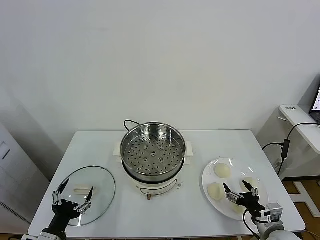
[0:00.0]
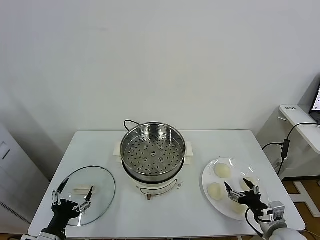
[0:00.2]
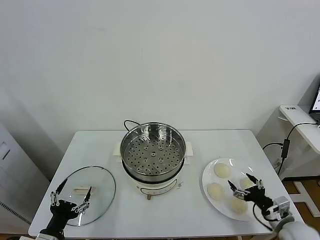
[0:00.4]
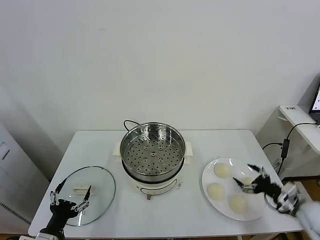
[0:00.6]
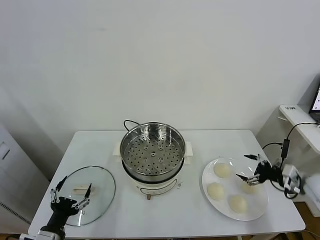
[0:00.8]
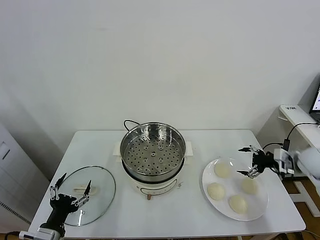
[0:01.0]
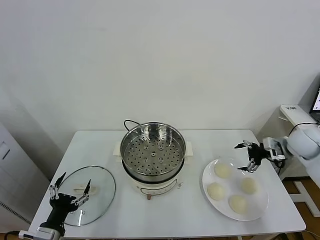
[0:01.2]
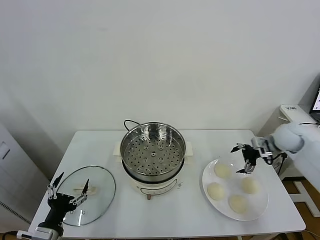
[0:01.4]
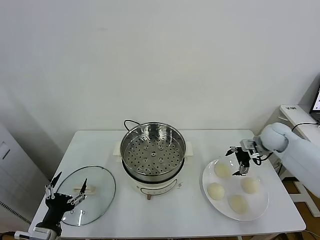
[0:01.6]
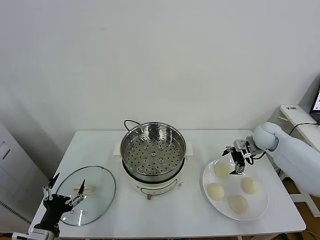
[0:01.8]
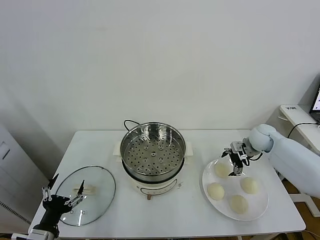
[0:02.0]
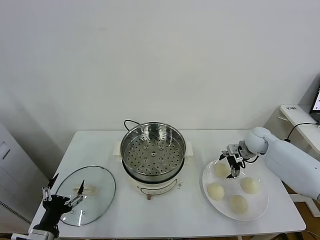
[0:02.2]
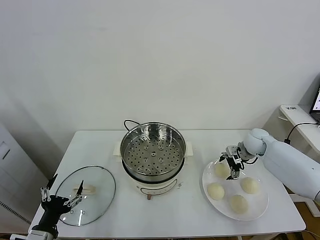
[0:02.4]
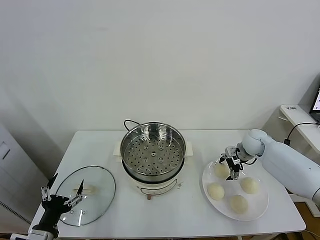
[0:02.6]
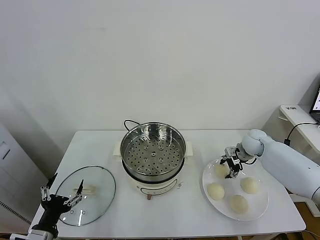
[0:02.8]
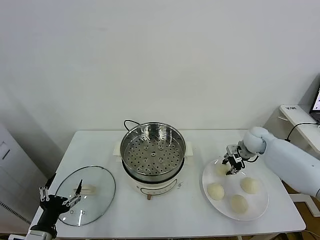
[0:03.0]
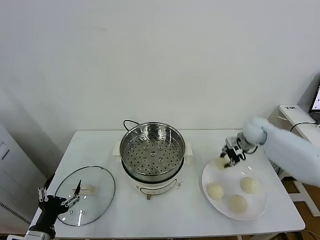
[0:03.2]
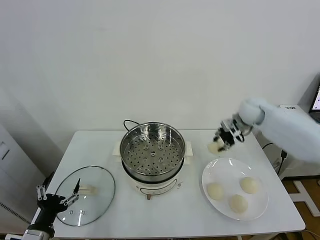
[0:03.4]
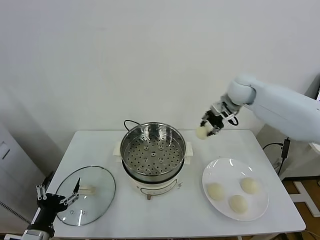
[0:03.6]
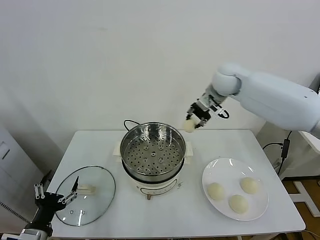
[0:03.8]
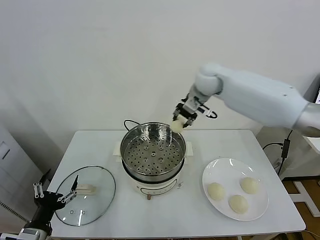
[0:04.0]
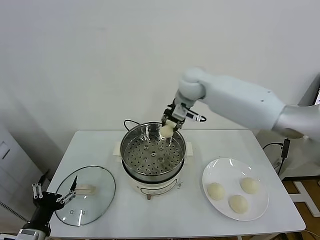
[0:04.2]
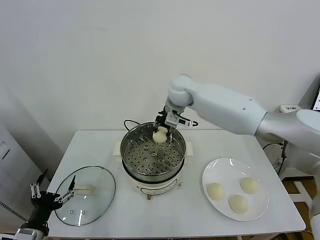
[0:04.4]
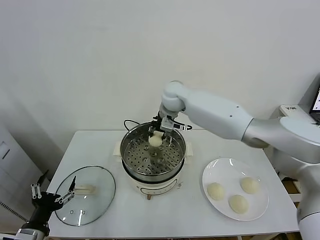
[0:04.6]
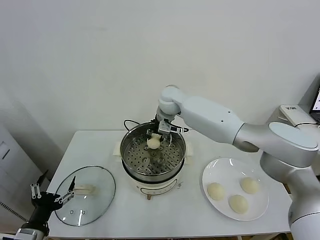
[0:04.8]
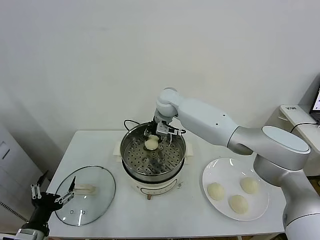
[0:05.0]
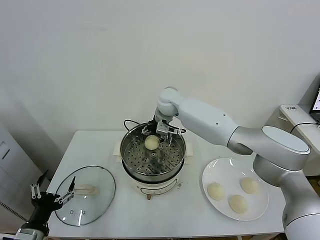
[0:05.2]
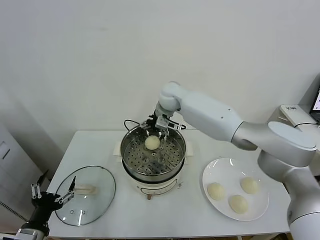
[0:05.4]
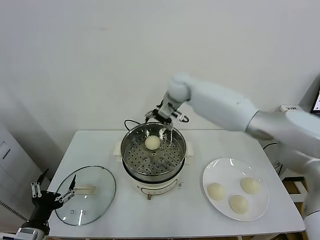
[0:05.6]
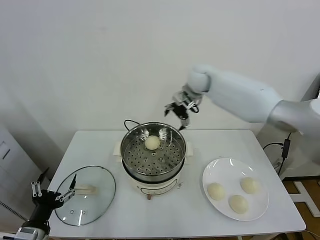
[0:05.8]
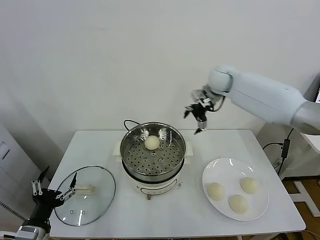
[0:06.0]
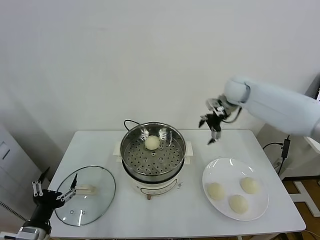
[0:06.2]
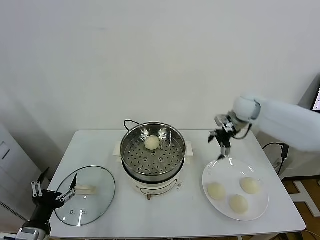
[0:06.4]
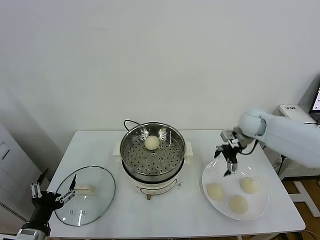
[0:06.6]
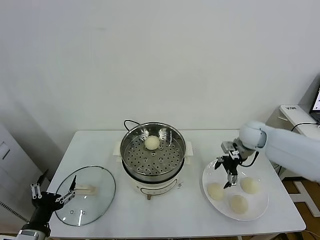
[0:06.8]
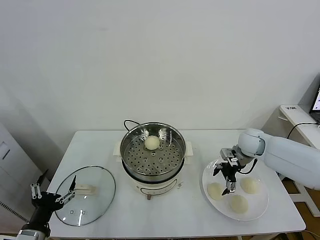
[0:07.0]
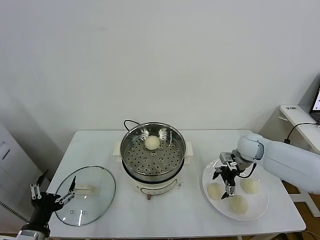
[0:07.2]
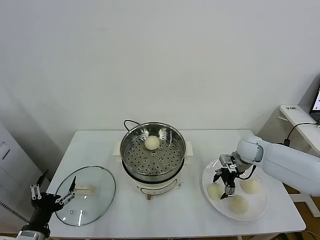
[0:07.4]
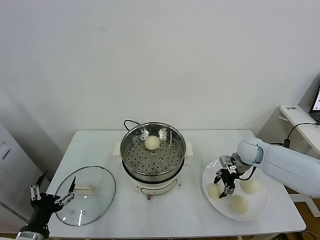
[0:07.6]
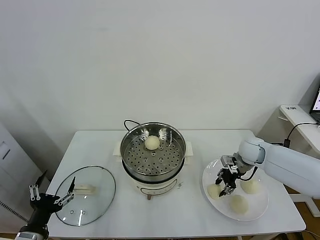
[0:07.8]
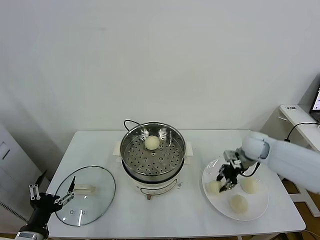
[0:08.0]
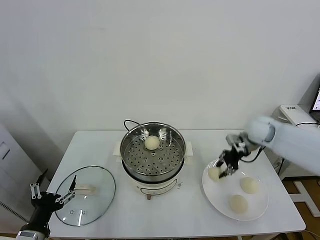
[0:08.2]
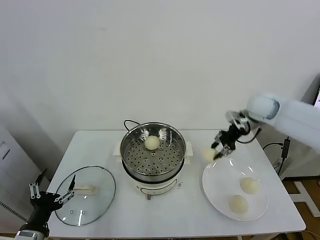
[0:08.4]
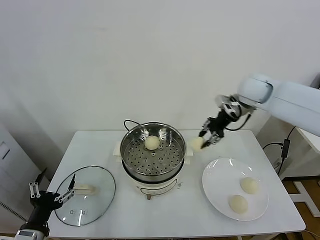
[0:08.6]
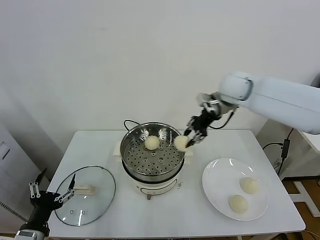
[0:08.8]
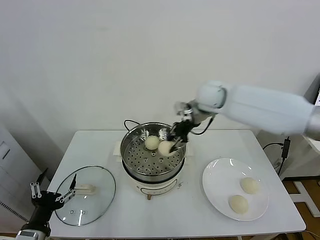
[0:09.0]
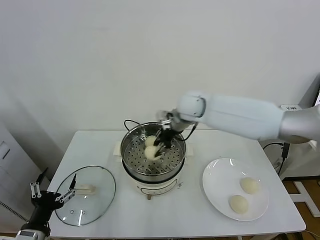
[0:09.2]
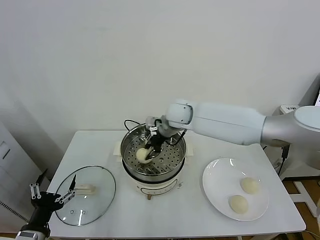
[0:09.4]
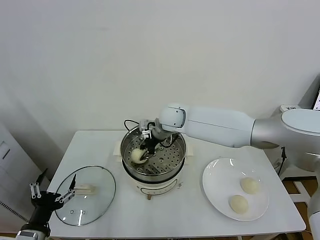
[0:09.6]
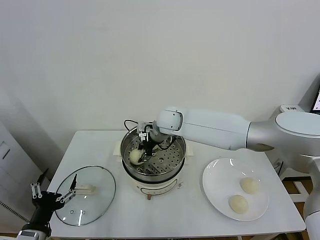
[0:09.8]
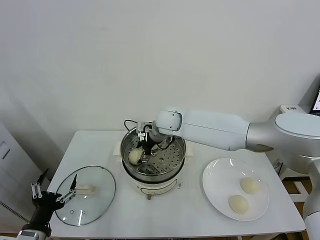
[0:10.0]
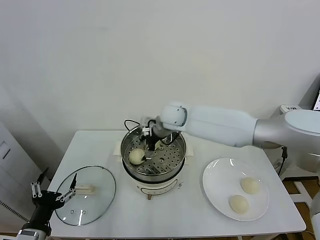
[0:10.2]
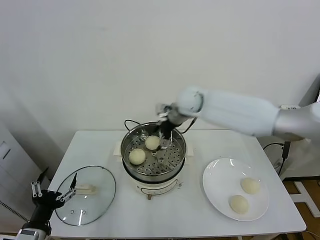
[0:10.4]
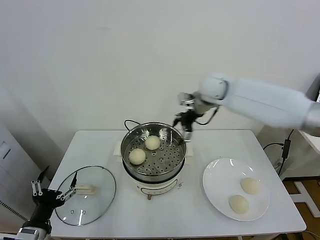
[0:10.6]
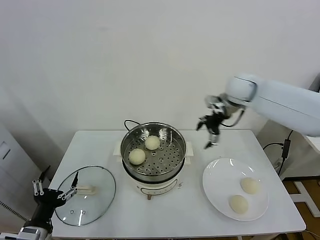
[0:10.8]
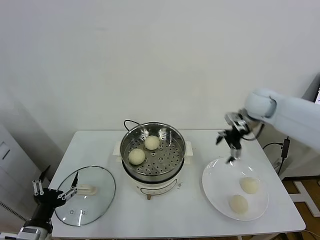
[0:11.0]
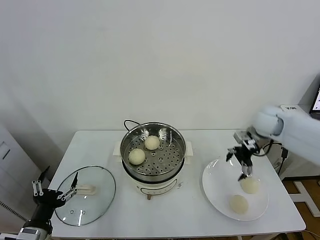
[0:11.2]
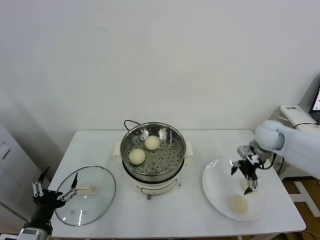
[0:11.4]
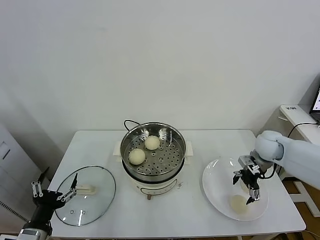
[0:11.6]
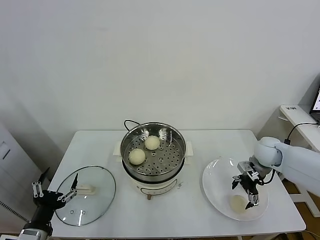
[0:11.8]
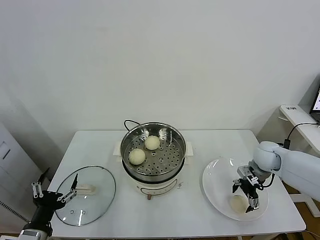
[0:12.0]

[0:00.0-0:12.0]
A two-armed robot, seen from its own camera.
Task of the whole recording: take steamed baozi put them in steamer.
Step, 0:00.0 to 0:02.8: Grasp the baozi in the plate with right gripper.
Step, 0:03.0 to 0:05.2: Place the baozi on the steamer with right gripper.
Step, 0:05.4 to 0:07.4: Grasp the baozi in the plate with right gripper.
Step, 0:07.6 to 0:10.0: Place the baozi on the steamer with right gripper.
0:01.6 to 0:03.0: The right gripper closes.
0:03.0 to 0:04.4: The right gripper heads to the left and upward, covering roughly 35 cm.
0:04.4 to 0:06.0: The right gripper goes roughly 20 cm to the right, and opens its fingers.
0:06.0 to 0:07.6: The right gripper is displaced downward, backward and to the right by roughly 25 cm, and closes up.
0:07.6 to 0:09.0: The right gripper goes approximately 30 cm to the left and upward.
0:09.0 to 0:10.4: The right gripper moves roughly 10 cm to the left and comes back, and opens its fingers.
0:10.4 to 0:12.0: The right gripper travels to the right, downward and backward by about 35 cm.

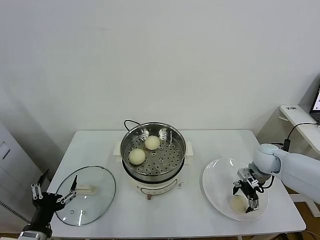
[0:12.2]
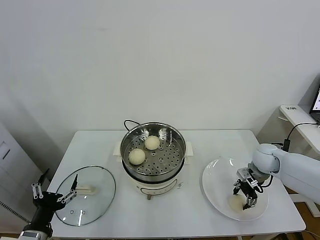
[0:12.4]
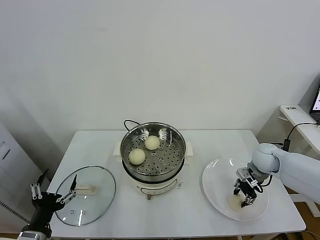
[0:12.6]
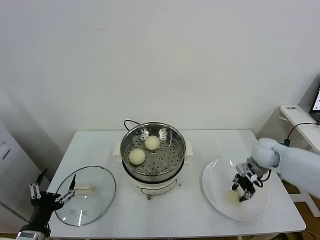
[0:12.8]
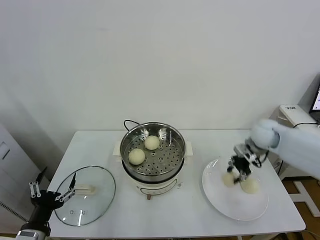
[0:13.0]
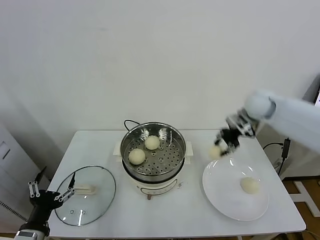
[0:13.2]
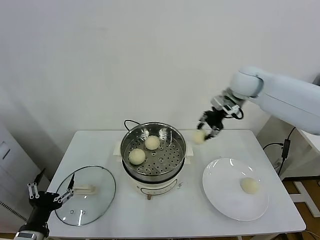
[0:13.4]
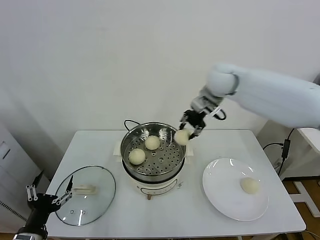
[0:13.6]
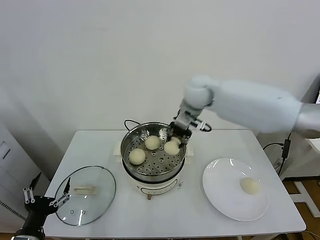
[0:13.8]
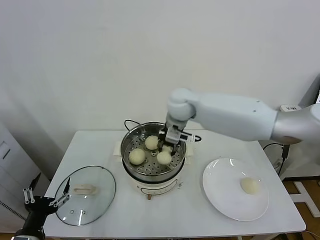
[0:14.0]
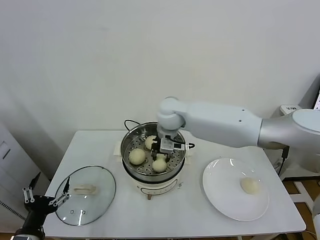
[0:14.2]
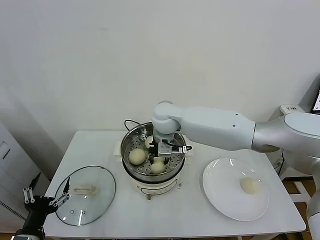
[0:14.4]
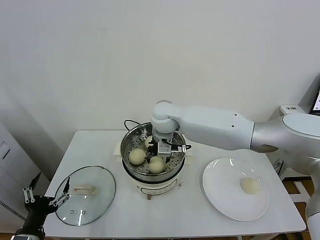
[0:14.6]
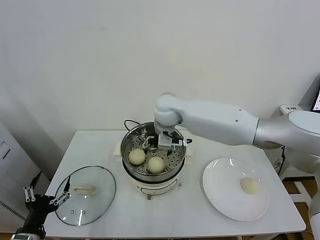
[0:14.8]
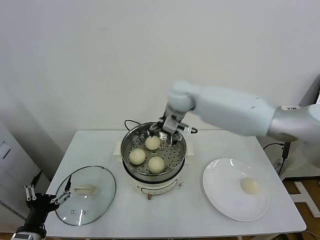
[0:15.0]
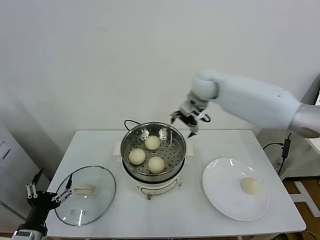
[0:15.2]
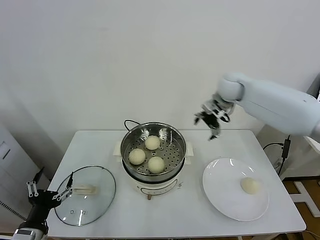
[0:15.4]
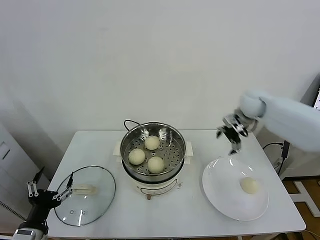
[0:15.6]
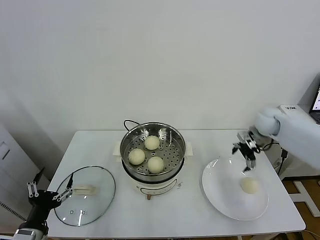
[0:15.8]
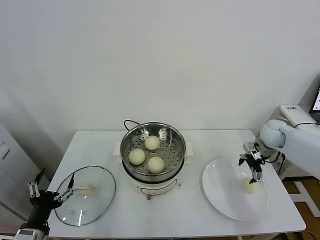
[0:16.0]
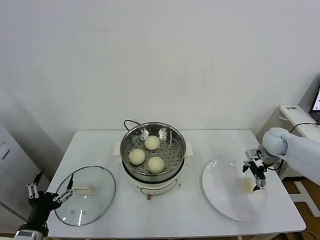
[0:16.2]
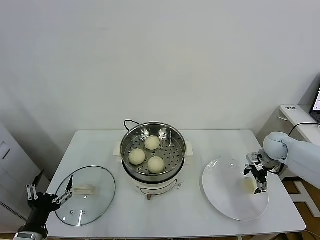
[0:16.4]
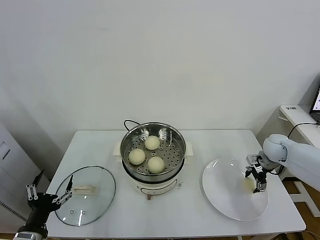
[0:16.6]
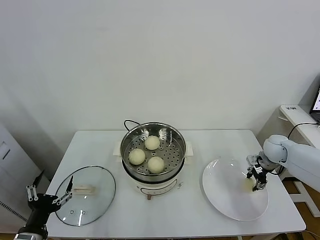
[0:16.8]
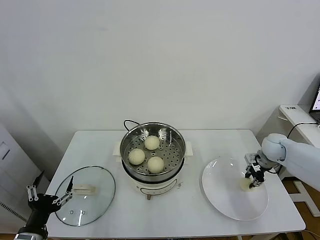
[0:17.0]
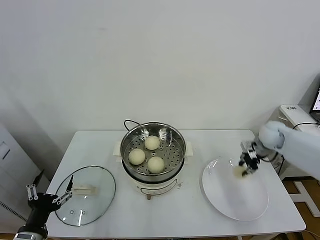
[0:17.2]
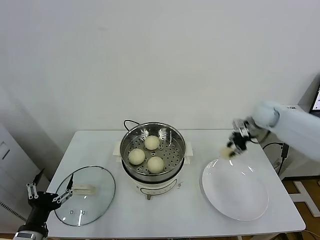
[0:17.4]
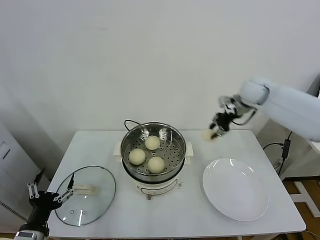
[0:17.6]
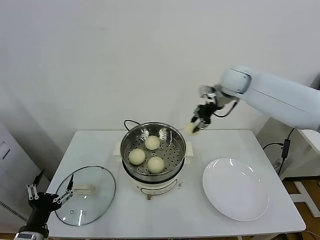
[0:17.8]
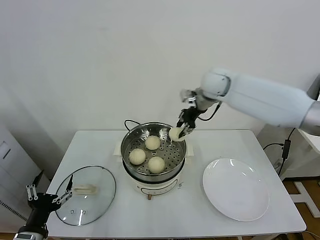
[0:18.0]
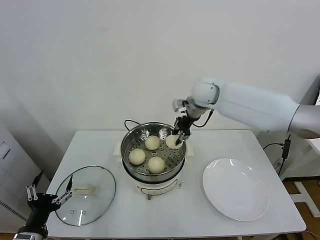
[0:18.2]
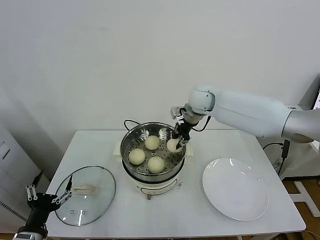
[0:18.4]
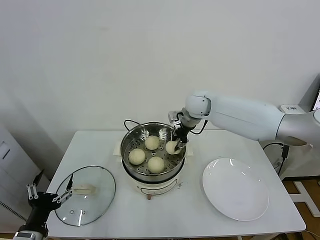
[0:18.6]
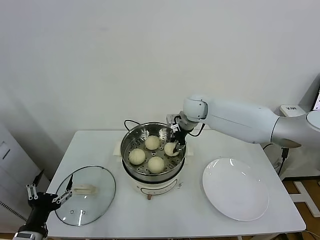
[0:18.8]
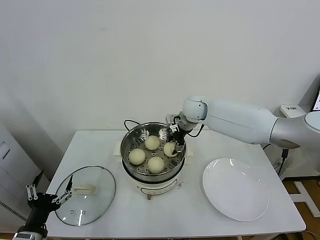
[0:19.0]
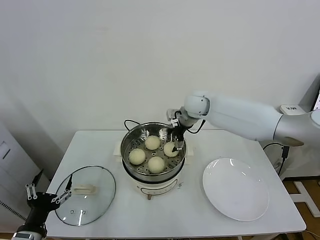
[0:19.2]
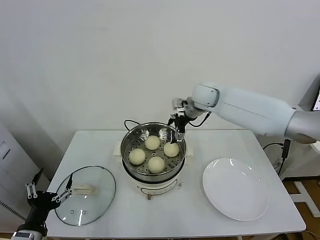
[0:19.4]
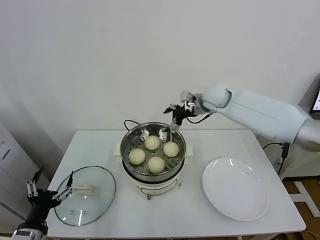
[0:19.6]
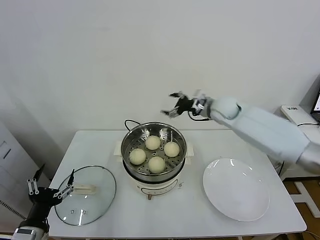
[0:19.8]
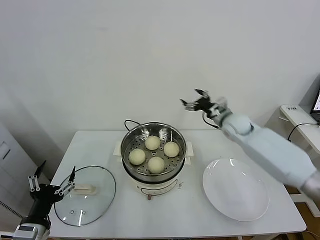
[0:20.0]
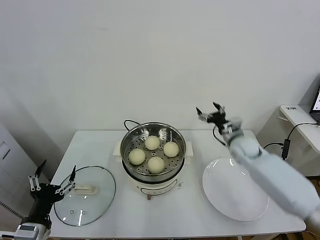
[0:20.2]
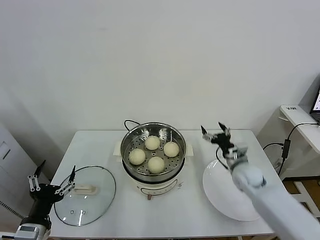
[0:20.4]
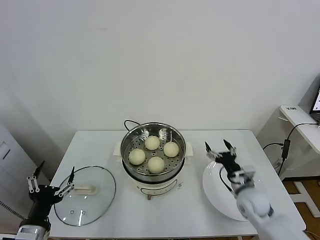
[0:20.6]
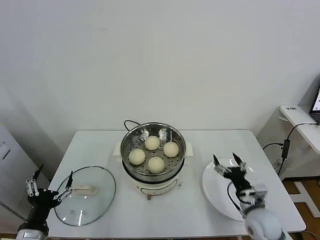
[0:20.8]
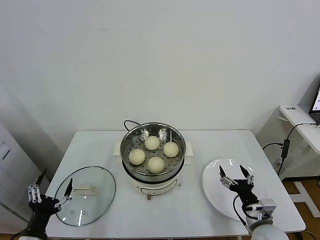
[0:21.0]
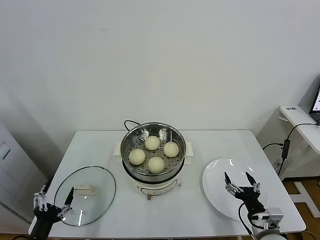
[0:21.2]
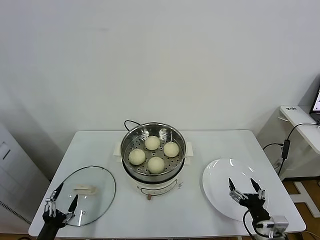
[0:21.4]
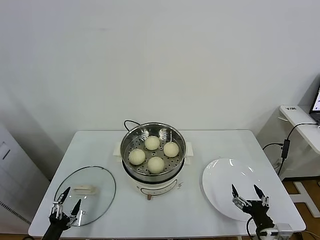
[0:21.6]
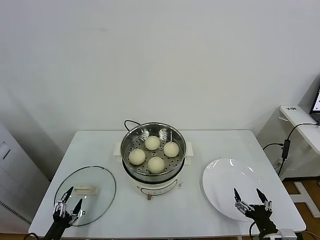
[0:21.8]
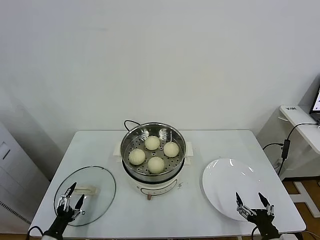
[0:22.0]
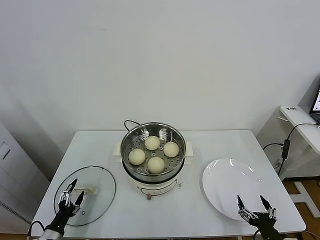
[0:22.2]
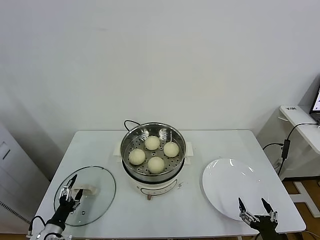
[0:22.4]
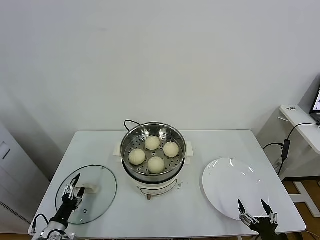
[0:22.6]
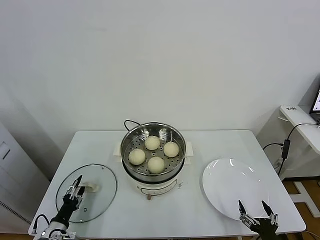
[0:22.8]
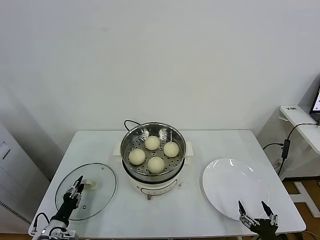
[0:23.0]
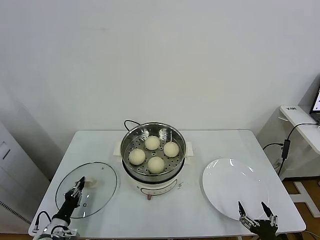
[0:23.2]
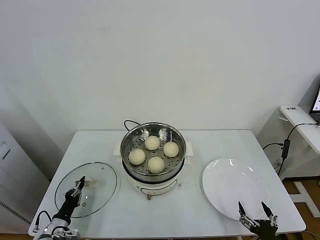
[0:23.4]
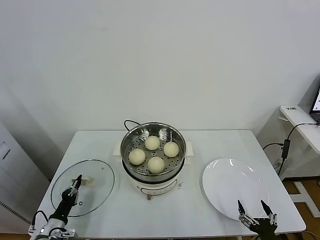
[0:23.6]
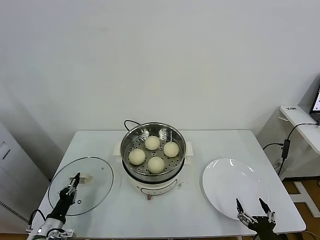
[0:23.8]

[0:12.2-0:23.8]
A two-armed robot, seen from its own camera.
Task of the whole recording: take steamed baozi put them in steamer.
Step, 0:12.6 to 0:14.8: Place the baozi on the steamer with right gripper.
Step, 0:15.0 to 0:16.8: Grasp the baozi in the plate with right gripper.
Step, 0:17.0 to 0:19.2: Place the baozi on the steamer with right gripper.
Step, 0:19.4 to 0:23.2: Grasp the pot lid with left gripper.
0:12.2 to 0:13.6: The right gripper shifts approximately 35 cm upward and to the left, and closes its fingers.
0:13.6 to 0:15.0: The right gripper goes approximately 10 cm to the left, and opens.
0:15.0 to 0:16.6: The right gripper travels to the right and downward by approximately 40 cm.
0:16.6 to 0:18.0: The right gripper travels to the left and upward by some 35 cm, and closes up.
0:18.0 to 0:19.4: The right gripper opens.
0:19.4 to 0:21.0: The right gripper shifts about 50 cm backward, downward and to the right.
0:21.0 to 0:22.4: The right gripper goes approximately 10 cm backward. Meanwhile the left gripper shifts approximately 15 cm downward and forward.
0:22.4 to 0:23.8: The left gripper closes its fingers.
